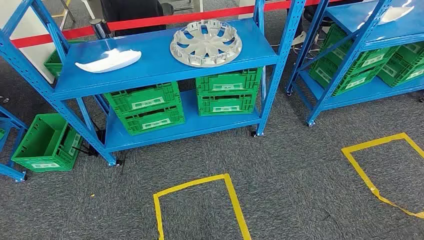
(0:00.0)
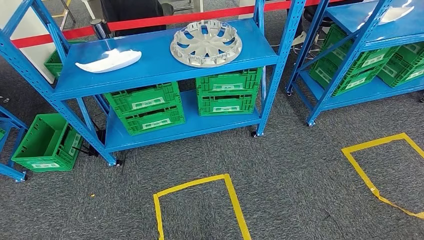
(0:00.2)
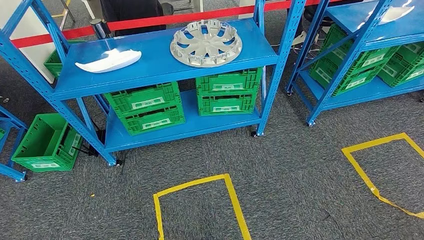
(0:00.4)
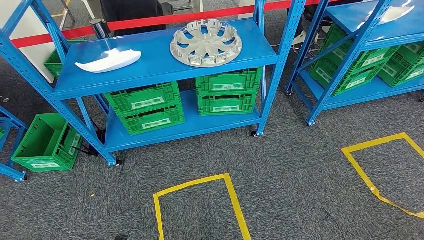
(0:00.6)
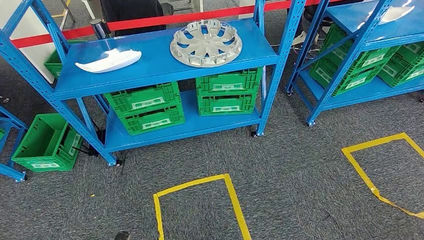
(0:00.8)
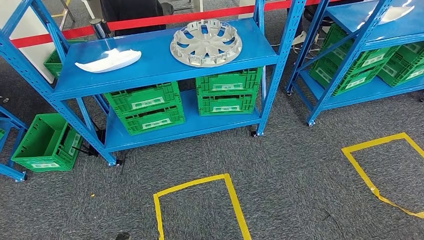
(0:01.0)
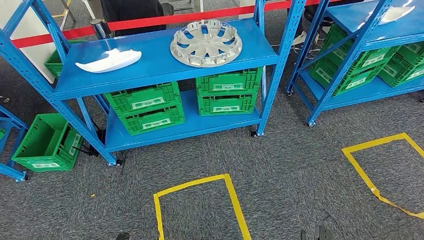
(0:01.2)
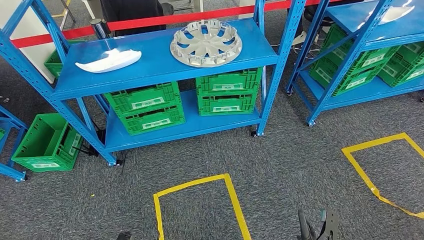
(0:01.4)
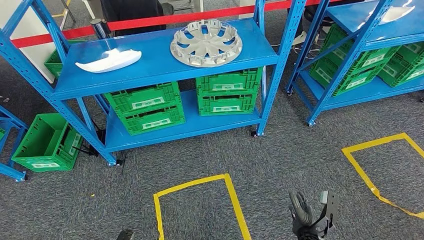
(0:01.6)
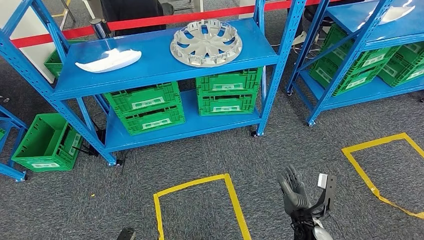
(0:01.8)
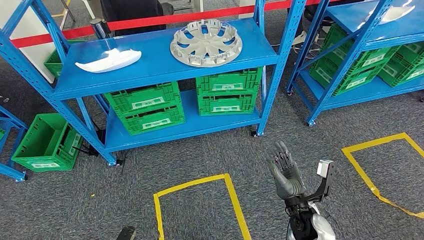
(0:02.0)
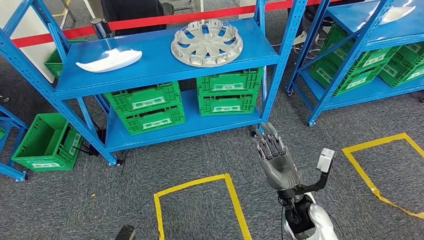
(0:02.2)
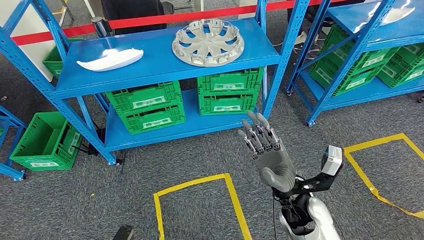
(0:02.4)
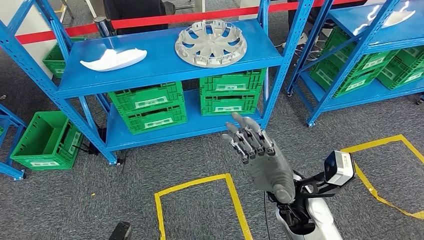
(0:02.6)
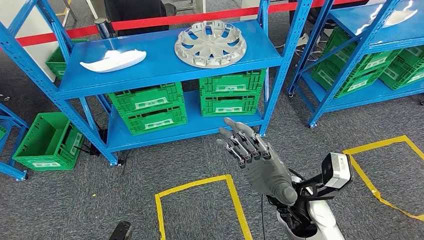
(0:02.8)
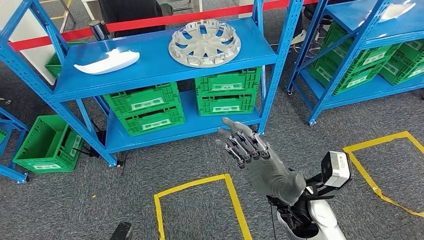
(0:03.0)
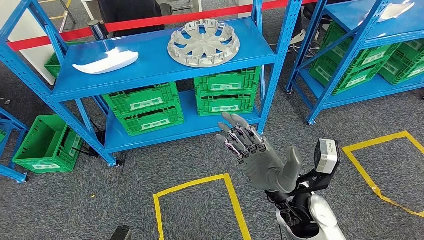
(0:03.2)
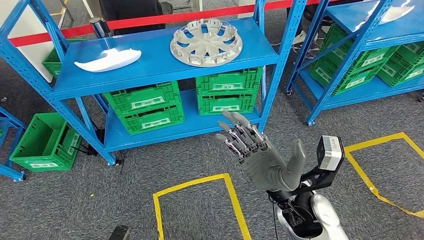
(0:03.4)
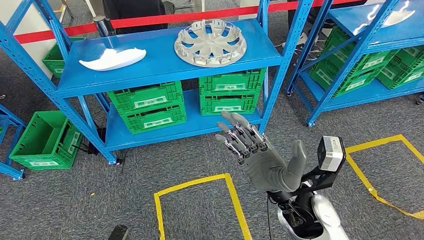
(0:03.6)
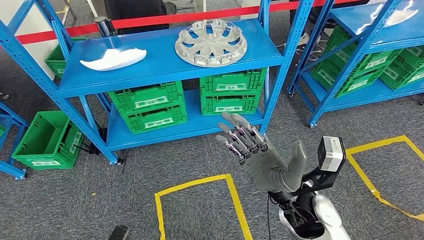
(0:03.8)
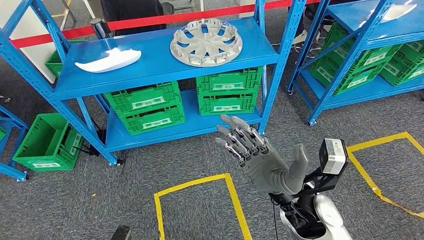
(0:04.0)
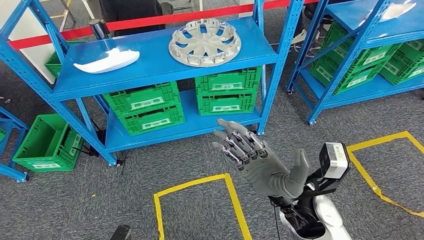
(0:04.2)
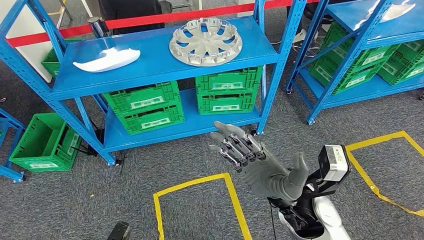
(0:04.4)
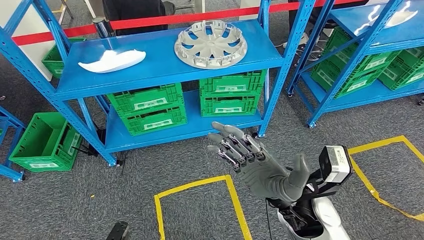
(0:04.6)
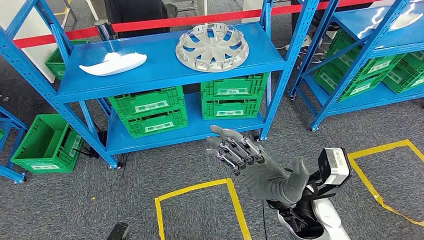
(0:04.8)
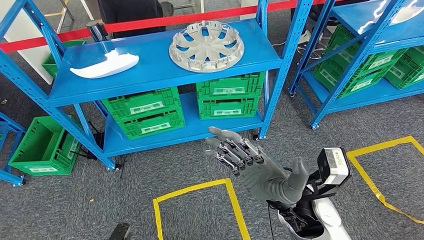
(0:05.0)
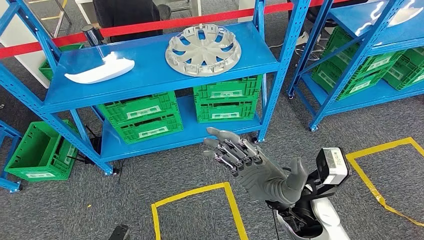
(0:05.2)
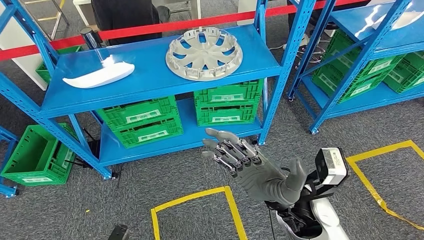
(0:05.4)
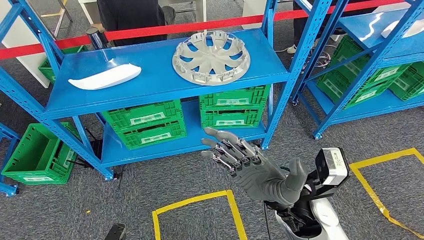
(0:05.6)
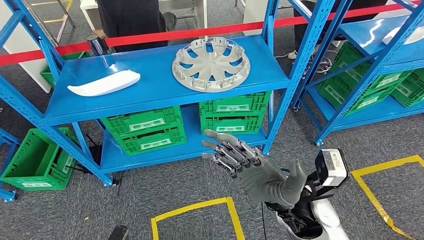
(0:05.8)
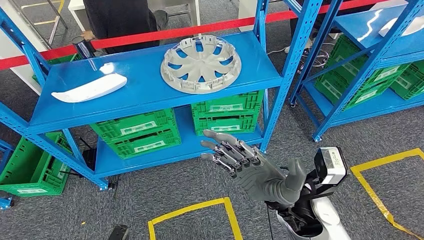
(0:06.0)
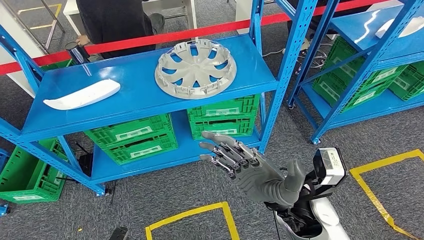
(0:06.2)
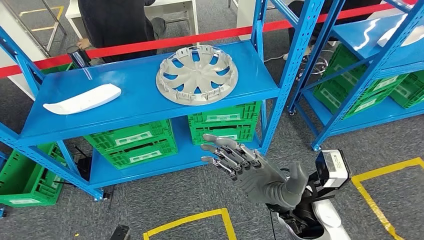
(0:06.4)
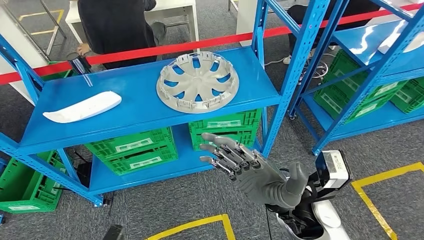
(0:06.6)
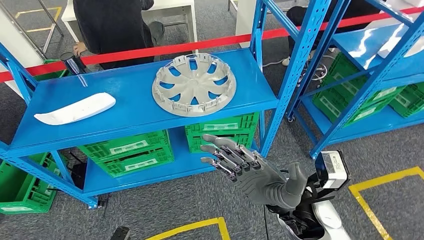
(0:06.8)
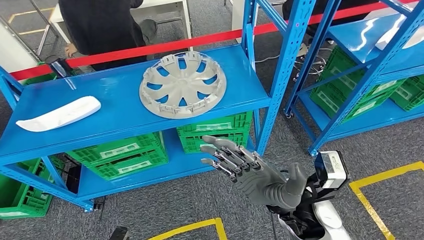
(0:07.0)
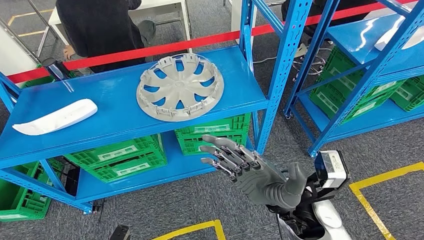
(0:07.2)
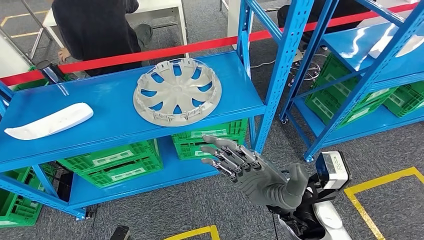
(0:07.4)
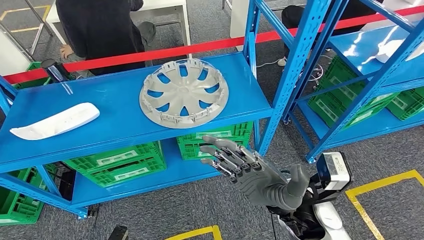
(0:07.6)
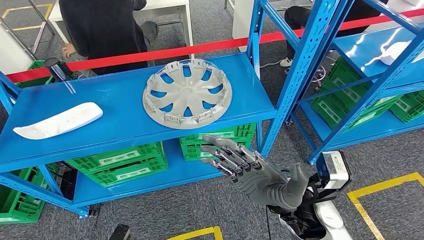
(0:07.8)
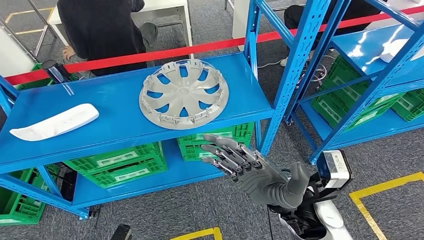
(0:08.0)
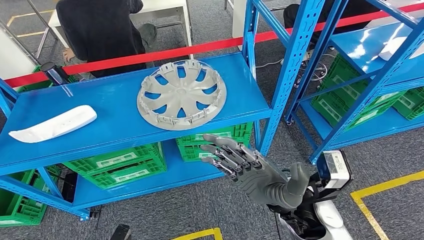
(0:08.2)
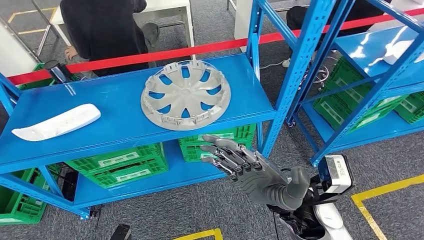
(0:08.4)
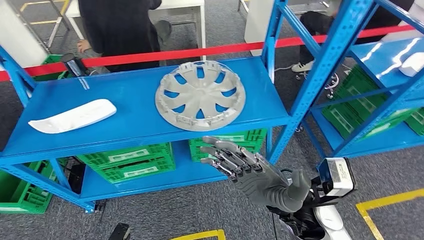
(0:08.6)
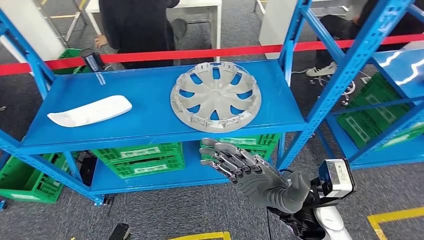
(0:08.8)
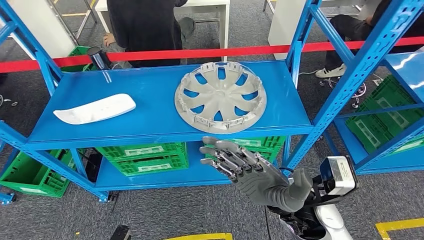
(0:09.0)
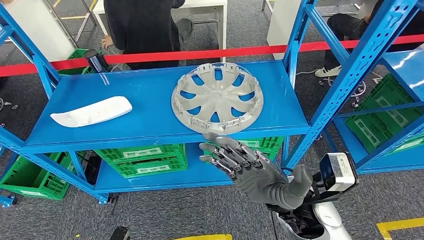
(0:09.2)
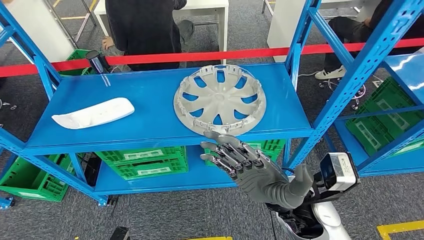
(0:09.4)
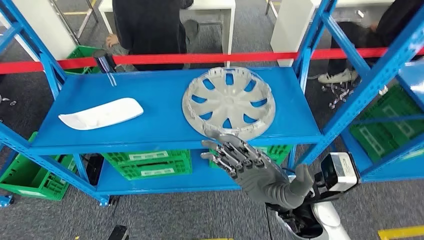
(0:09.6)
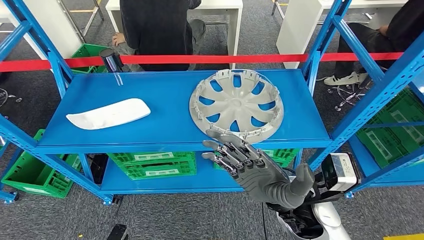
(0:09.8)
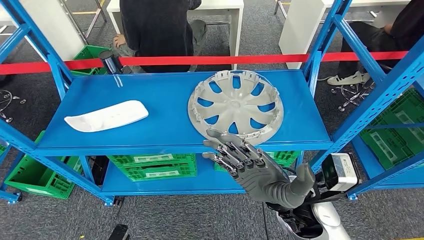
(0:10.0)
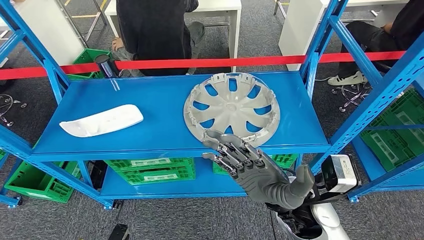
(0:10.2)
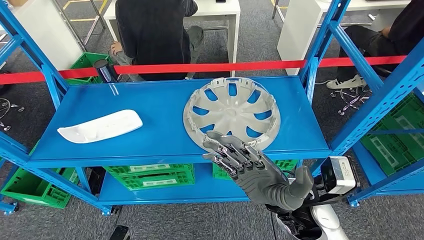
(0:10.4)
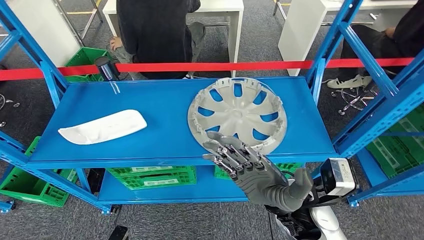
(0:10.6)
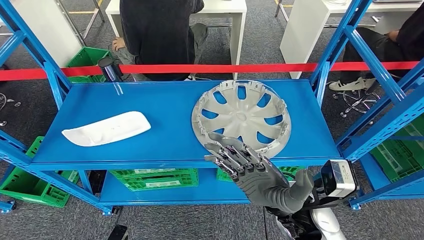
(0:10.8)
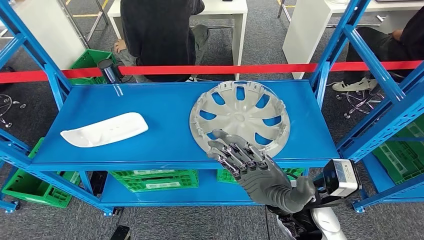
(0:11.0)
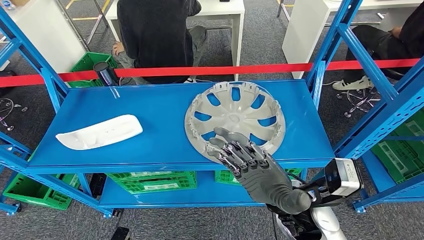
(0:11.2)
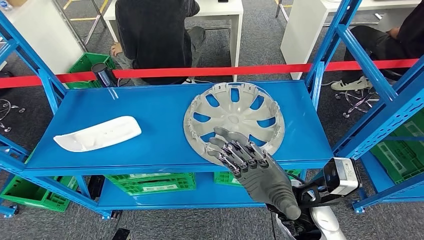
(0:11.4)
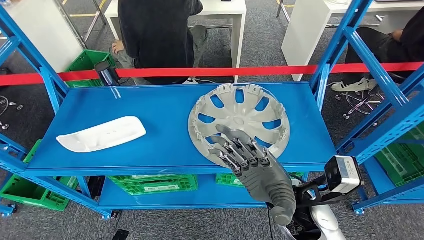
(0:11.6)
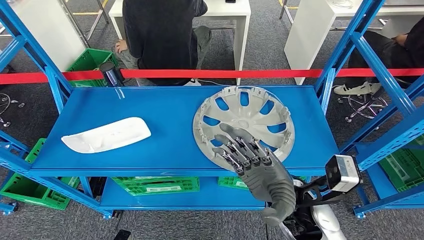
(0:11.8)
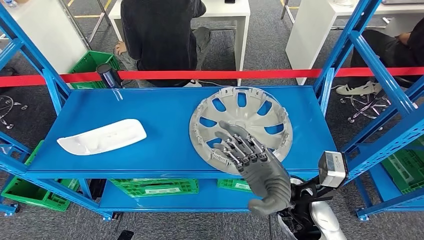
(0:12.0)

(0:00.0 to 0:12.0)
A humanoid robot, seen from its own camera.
0:01.6 - 0:03.0: The right hand is displaced upward and to the left by some 25 cm.
0:03.0 - 0:04.4: The hands move only a little.

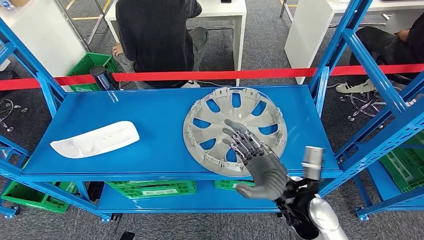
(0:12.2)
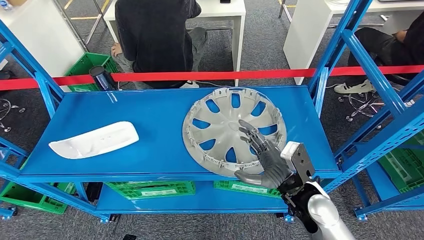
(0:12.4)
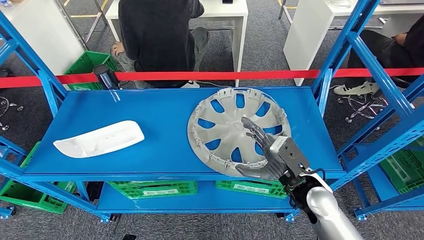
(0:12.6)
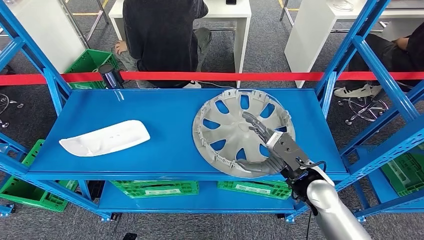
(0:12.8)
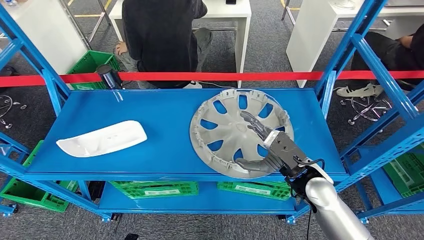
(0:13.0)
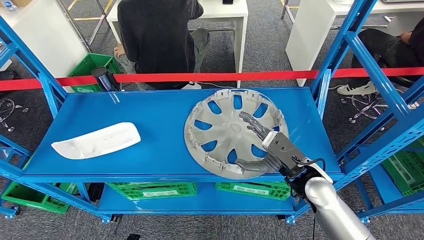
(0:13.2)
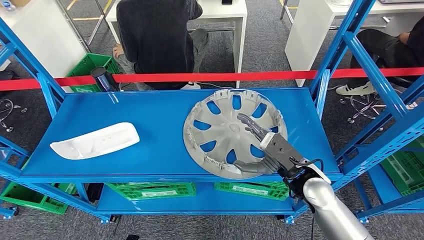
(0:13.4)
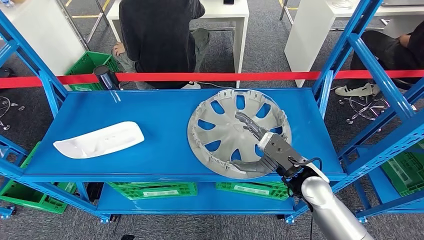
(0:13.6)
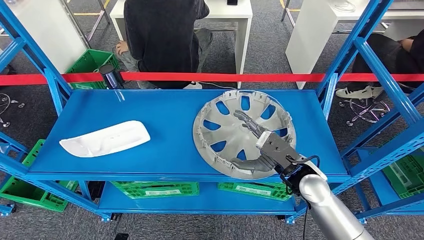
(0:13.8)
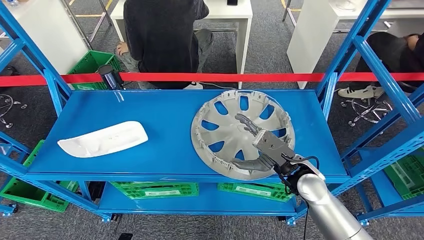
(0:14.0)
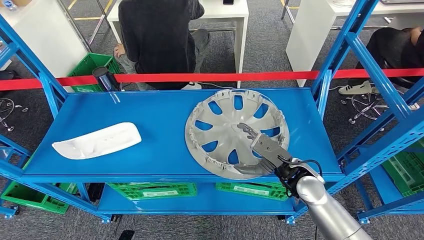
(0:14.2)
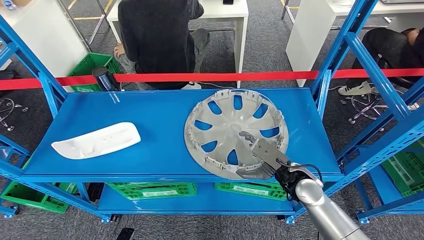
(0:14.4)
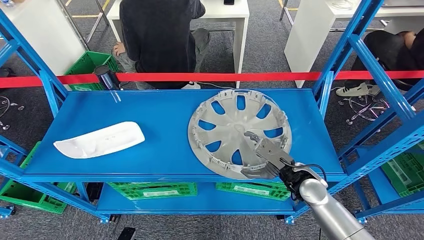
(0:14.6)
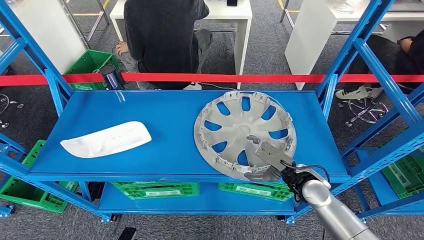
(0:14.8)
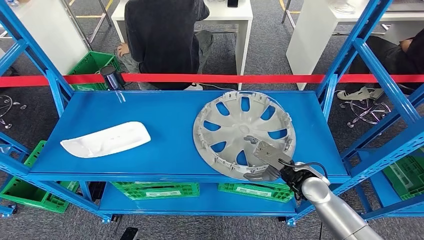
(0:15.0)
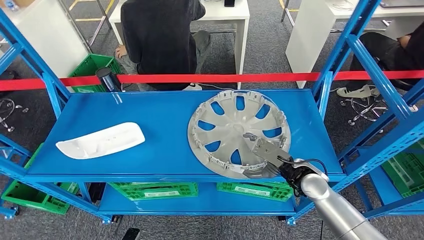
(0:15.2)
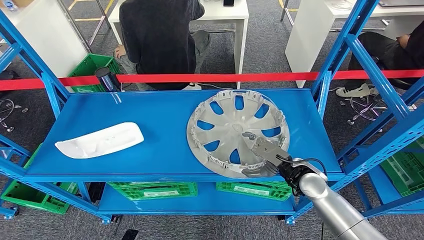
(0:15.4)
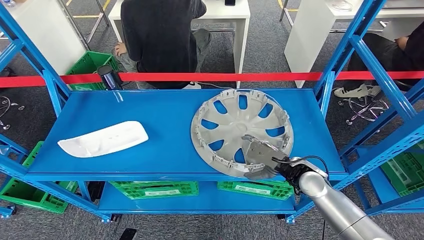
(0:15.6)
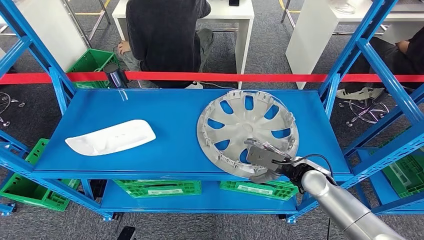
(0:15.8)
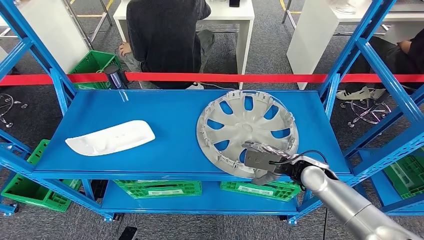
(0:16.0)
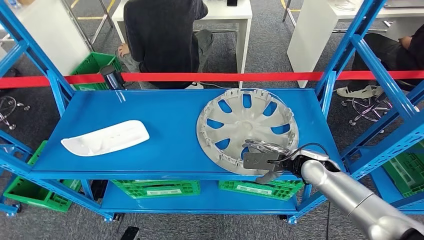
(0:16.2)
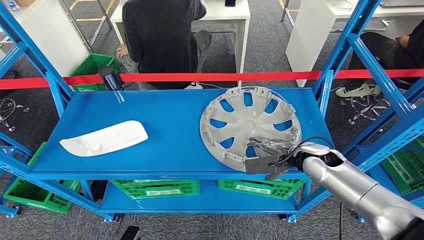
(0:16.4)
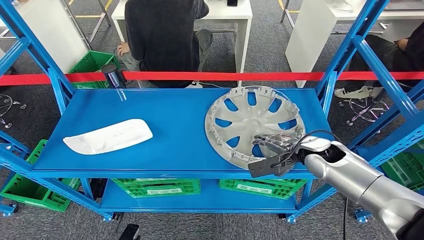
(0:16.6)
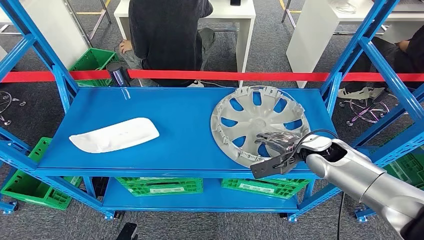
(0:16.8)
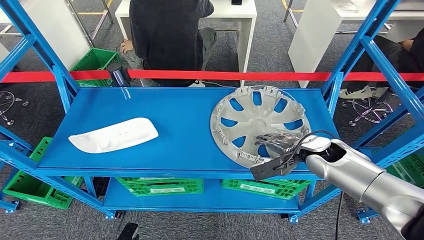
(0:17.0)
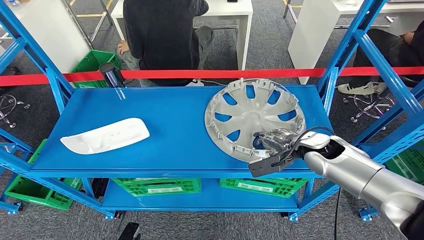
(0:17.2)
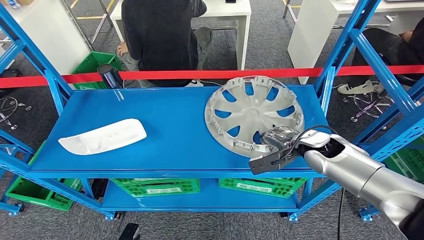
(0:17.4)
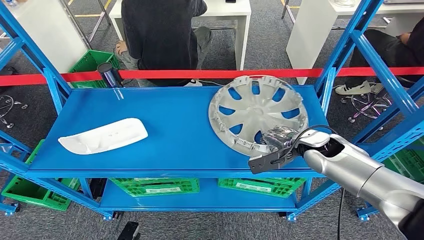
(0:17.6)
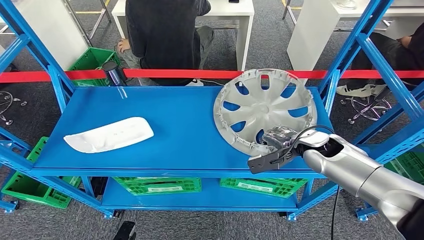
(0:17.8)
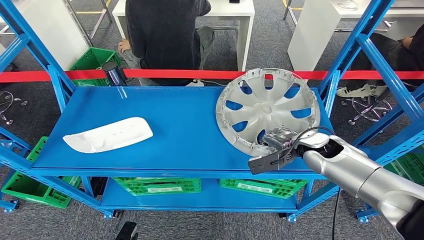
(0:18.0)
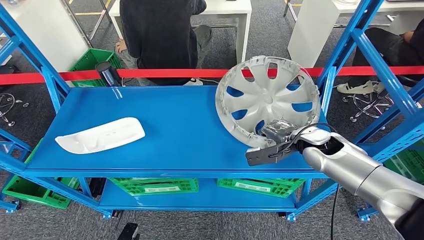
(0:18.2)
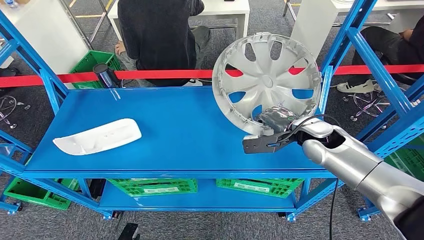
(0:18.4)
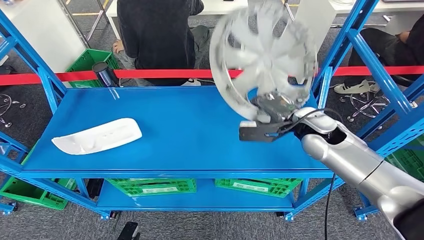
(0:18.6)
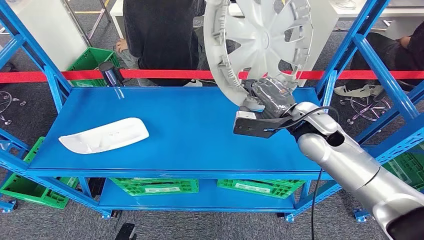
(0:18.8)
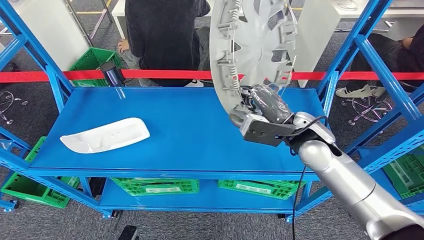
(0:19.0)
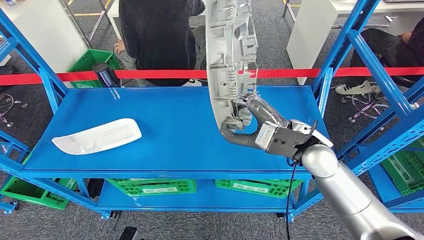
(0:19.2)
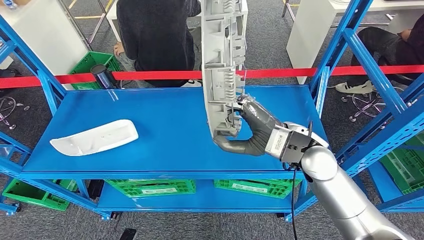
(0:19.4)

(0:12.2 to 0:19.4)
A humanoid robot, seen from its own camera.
Step, 0:12.2 - 0:19.2: Pick up the small component from the shelf.
